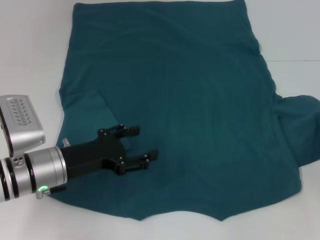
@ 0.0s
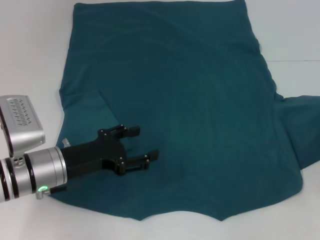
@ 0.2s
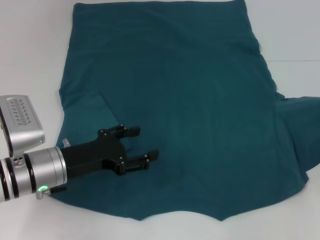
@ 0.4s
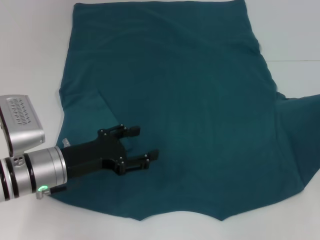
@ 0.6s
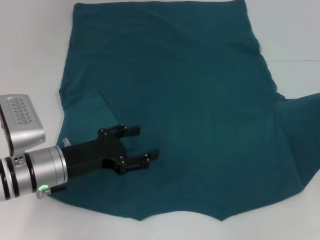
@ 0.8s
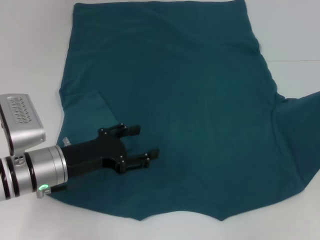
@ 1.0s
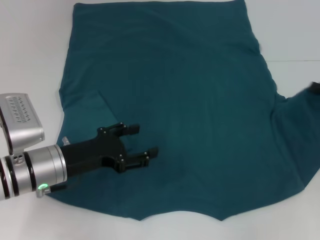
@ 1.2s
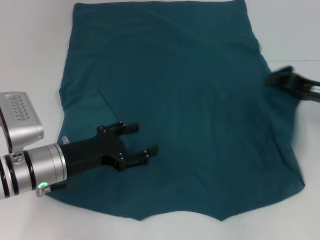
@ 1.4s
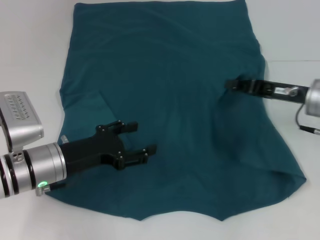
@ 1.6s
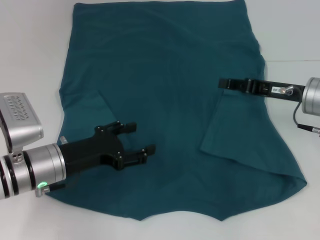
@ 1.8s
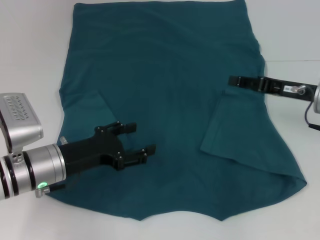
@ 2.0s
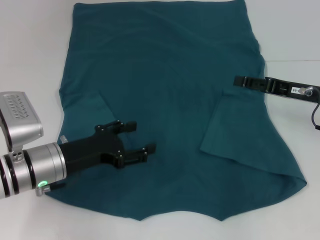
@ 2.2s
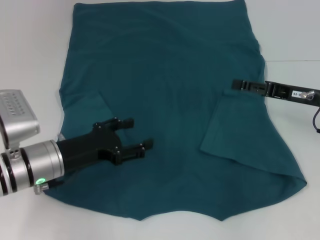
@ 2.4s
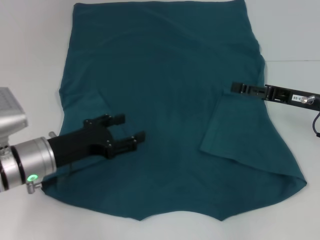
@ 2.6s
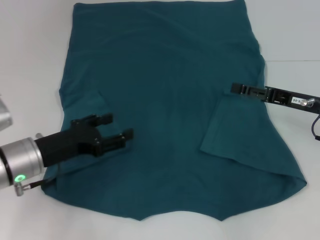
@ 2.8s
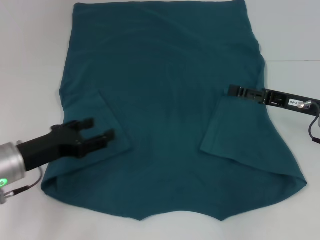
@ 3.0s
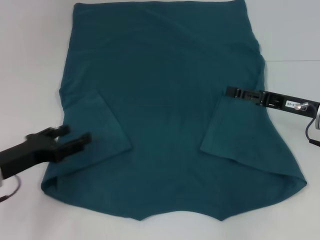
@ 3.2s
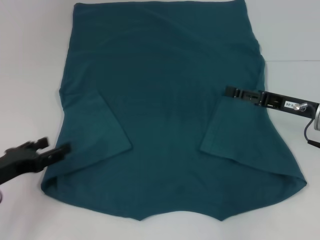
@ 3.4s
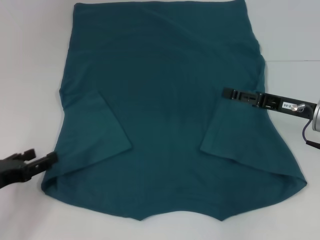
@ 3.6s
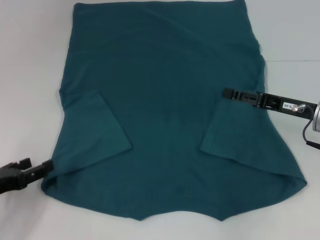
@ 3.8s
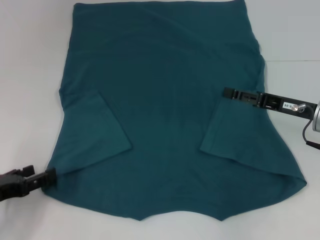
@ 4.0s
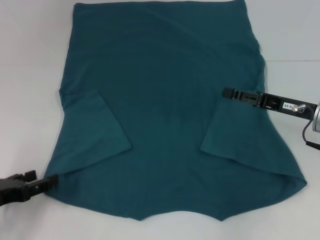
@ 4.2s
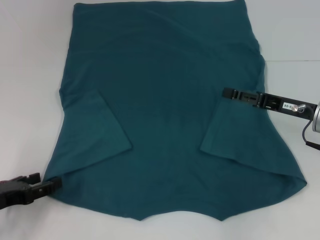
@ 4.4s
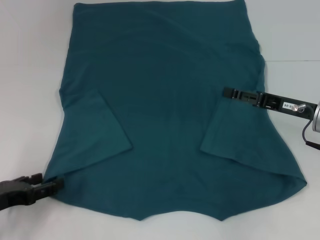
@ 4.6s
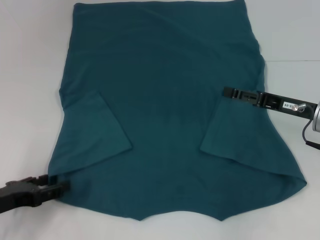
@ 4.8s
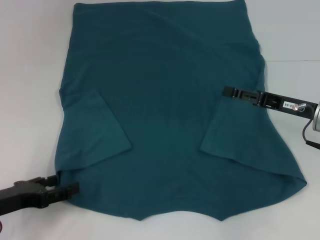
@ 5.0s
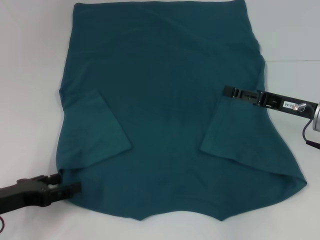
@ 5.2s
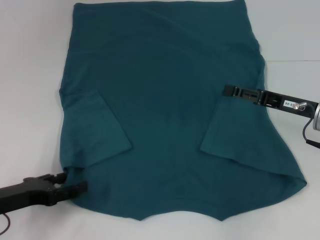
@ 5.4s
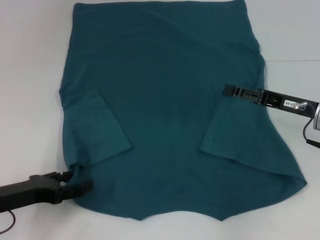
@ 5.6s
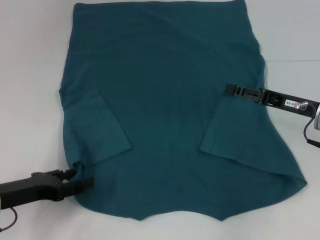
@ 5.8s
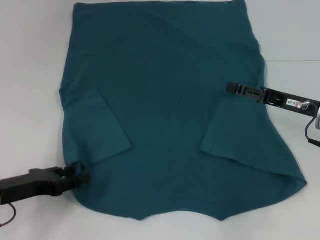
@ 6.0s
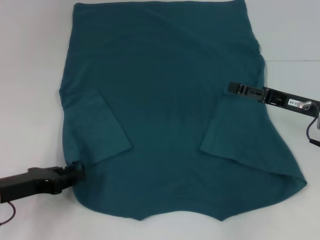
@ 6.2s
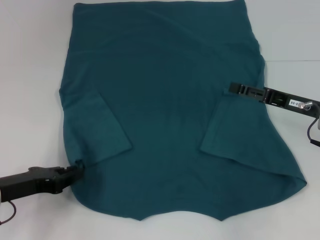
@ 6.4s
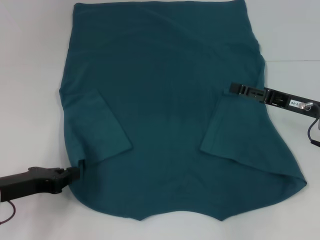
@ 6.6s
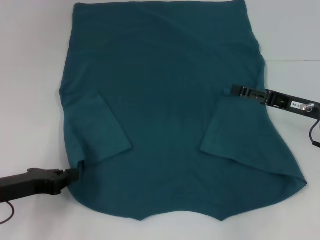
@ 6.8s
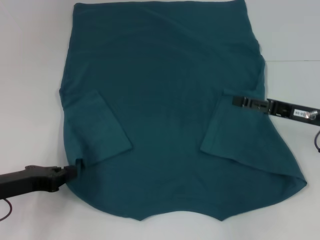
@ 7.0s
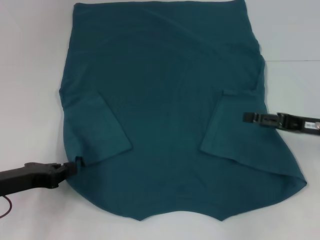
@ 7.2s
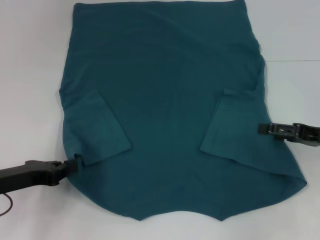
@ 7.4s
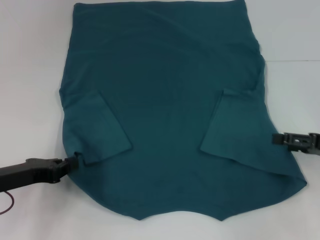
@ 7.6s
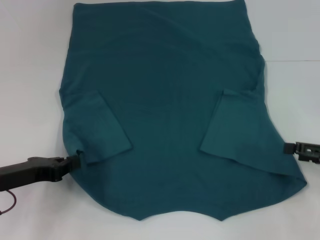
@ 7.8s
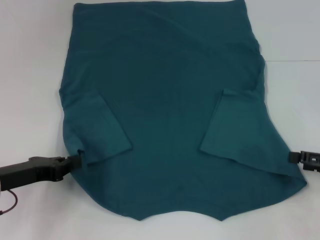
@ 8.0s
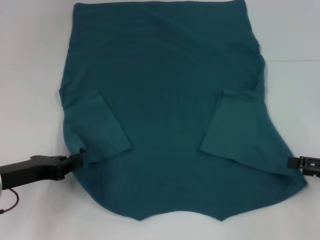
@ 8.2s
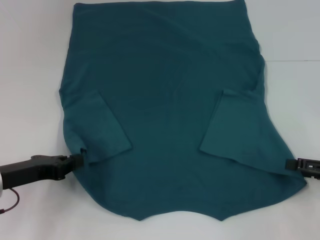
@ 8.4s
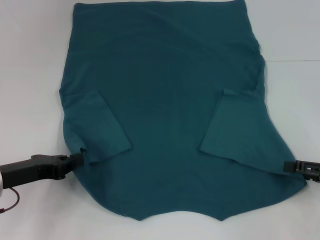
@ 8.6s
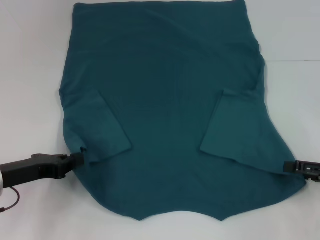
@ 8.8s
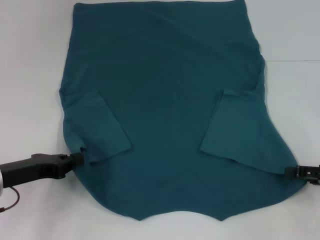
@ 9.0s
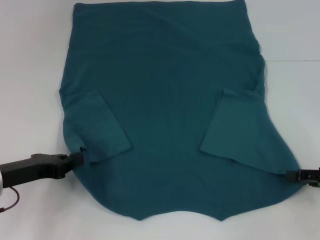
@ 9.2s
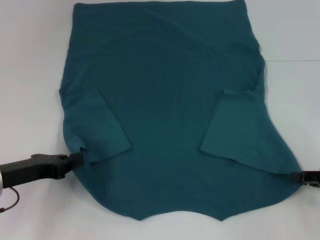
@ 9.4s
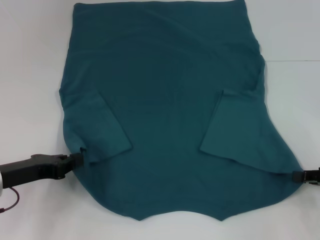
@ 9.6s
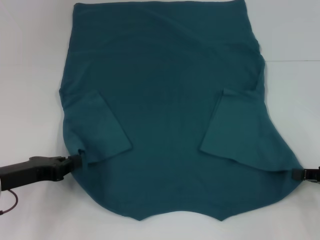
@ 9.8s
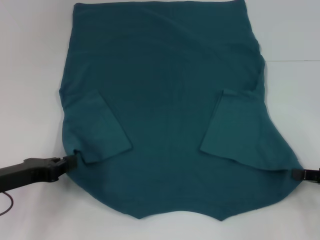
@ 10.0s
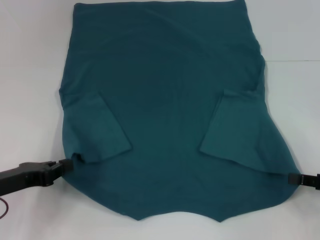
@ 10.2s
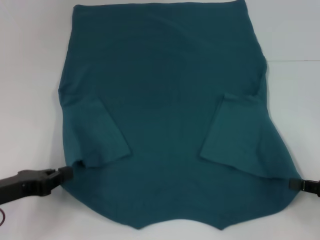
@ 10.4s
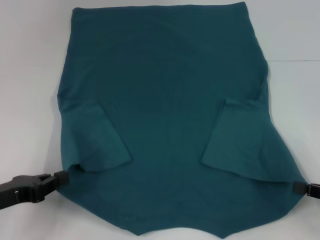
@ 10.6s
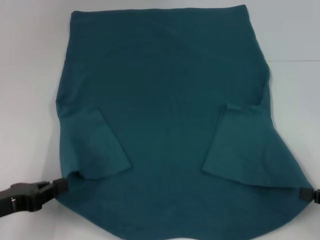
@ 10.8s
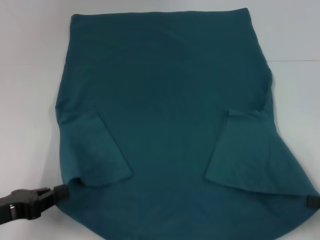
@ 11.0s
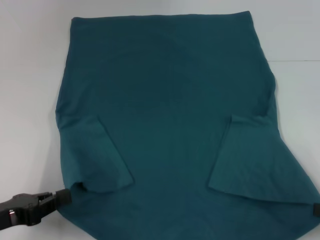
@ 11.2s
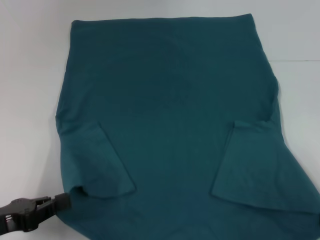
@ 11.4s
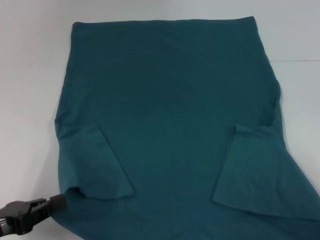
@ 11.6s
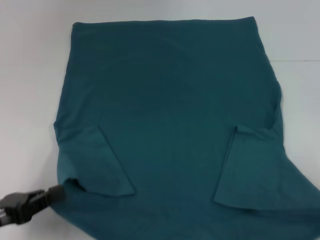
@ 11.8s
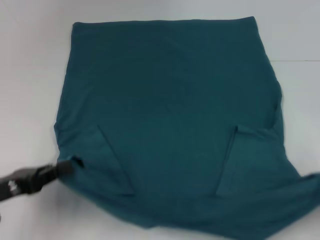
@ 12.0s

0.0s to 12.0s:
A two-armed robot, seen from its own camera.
Step, 0.0s to 3.2s: Fold the bottom right sleeve to the right.
Step, 3.4s to 6.4s: Grab the bottom left corner with your left hand.
Step, 6.6s to 9.8s: Grab the bottom right corner with your right hand.
0.0s to 1.6s: The right gripper is displaced to the left, forward and upward by roughly 15 cm.
1.6s to 3.0s: The right gripper opens up. Meanwhile the left gripper moves to the left, about 5 cm.
3.0s to 4.4s: The left gripper moves to the left and backward, approximately 10 cm.
4.4s to 6.0s: The grippers stay close to where they were, moving slightly.
6.0s to 7.6s: The left gripper closes, while the right gripper goes roughly 10 cm to the right.
7.6s to 9.0s: The grippers make only small movements.
9.0s to 10.4s: The right gripper closes up.
10.4s to 12.0s: The right gripper changes place by about 5 cm.

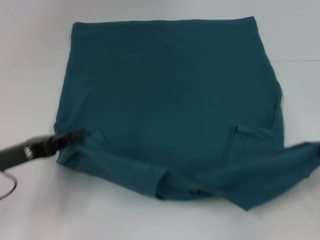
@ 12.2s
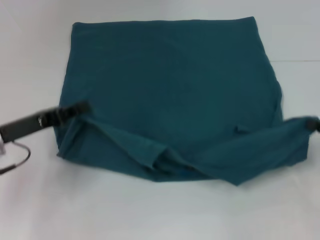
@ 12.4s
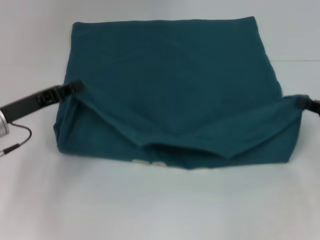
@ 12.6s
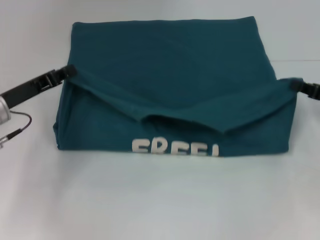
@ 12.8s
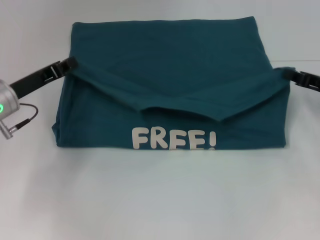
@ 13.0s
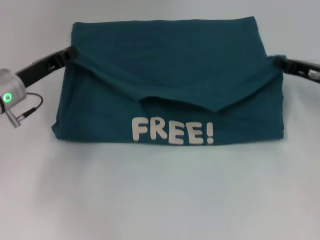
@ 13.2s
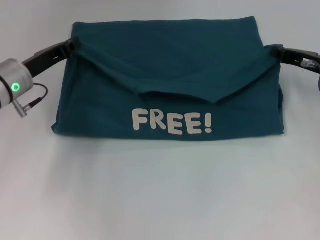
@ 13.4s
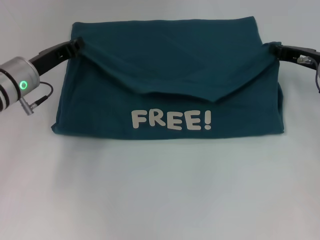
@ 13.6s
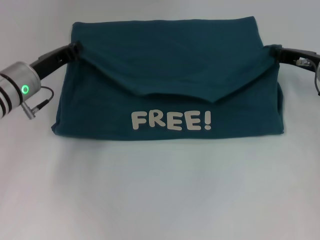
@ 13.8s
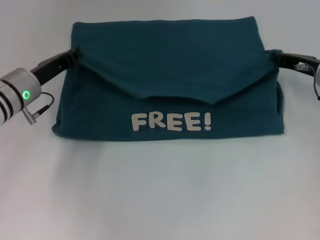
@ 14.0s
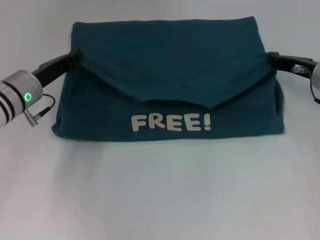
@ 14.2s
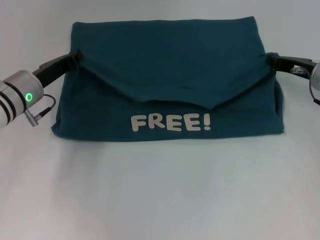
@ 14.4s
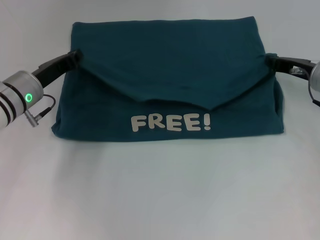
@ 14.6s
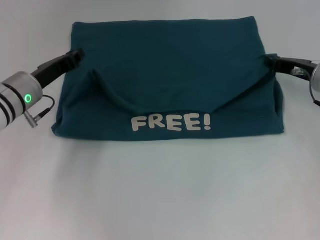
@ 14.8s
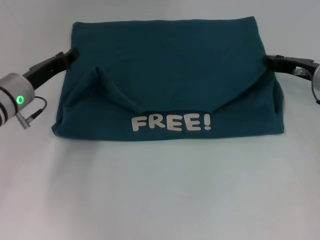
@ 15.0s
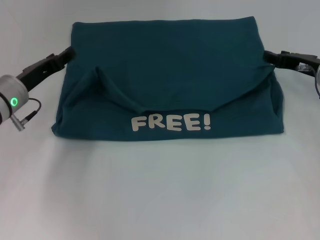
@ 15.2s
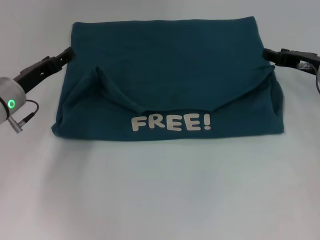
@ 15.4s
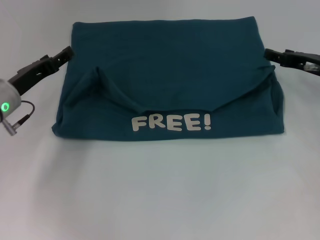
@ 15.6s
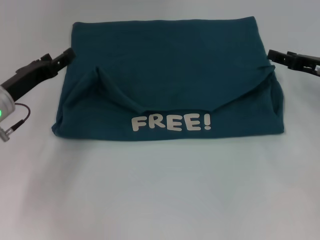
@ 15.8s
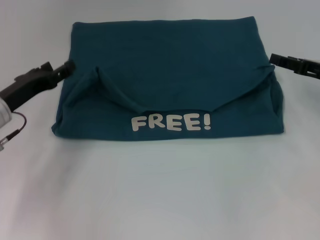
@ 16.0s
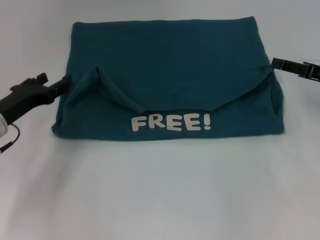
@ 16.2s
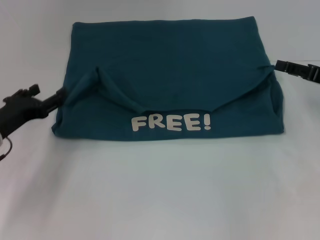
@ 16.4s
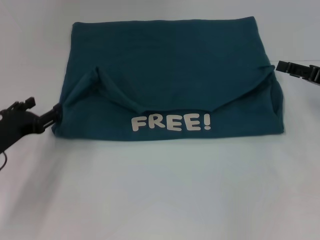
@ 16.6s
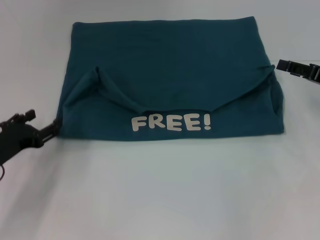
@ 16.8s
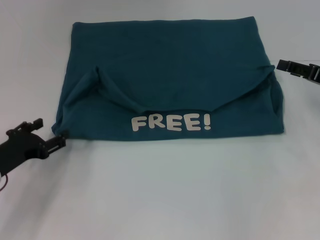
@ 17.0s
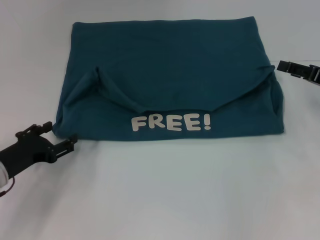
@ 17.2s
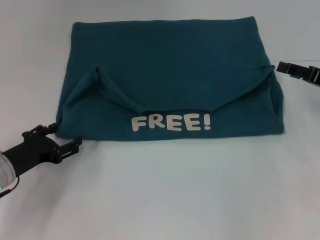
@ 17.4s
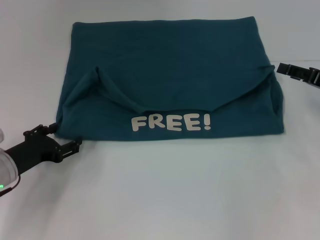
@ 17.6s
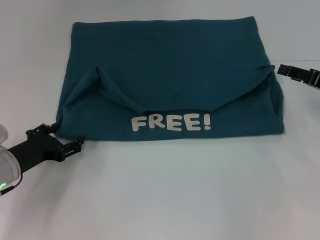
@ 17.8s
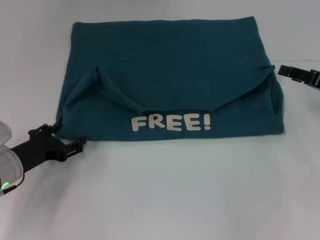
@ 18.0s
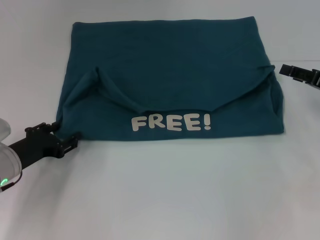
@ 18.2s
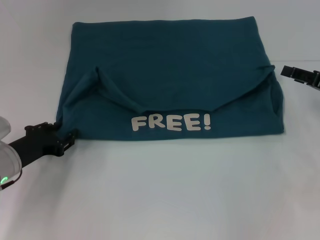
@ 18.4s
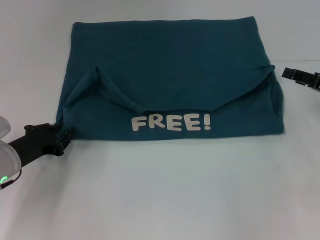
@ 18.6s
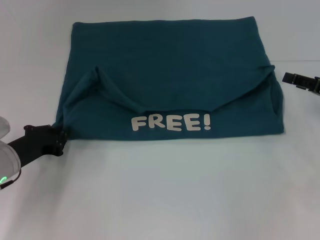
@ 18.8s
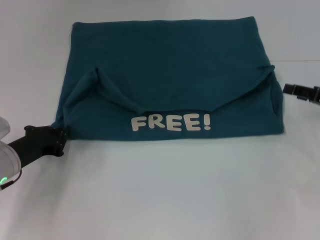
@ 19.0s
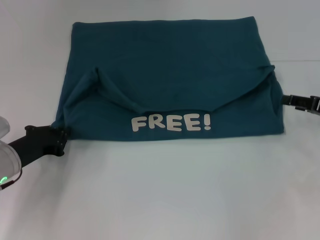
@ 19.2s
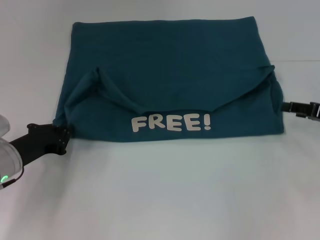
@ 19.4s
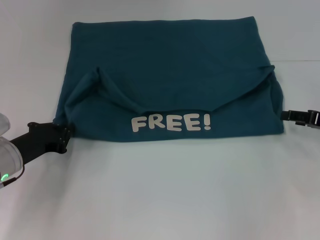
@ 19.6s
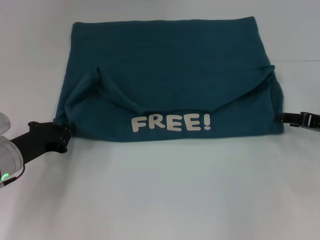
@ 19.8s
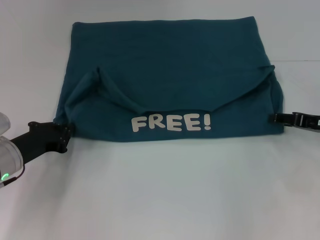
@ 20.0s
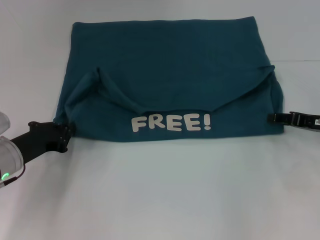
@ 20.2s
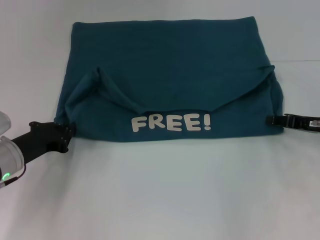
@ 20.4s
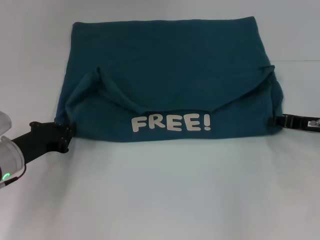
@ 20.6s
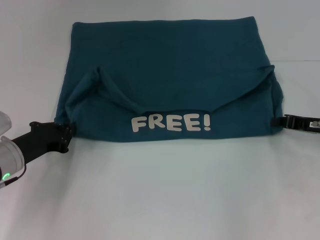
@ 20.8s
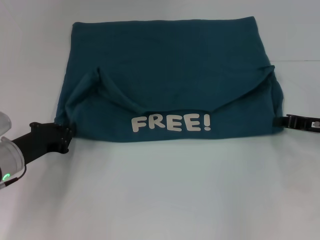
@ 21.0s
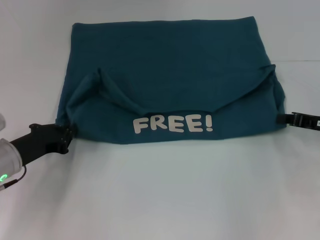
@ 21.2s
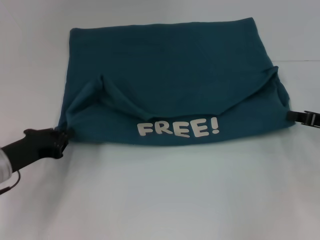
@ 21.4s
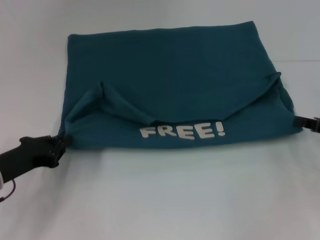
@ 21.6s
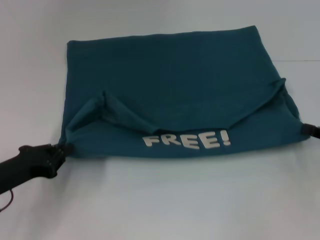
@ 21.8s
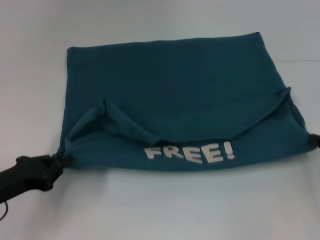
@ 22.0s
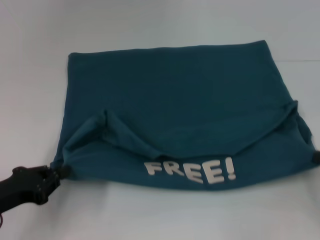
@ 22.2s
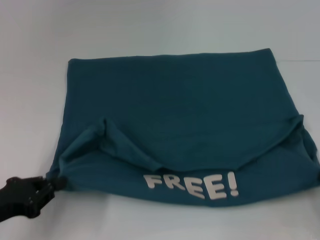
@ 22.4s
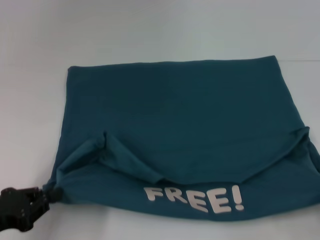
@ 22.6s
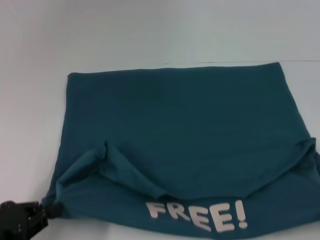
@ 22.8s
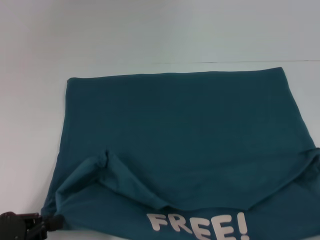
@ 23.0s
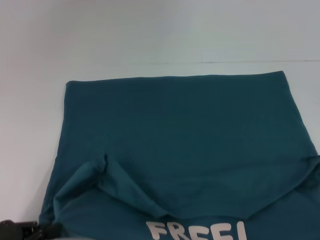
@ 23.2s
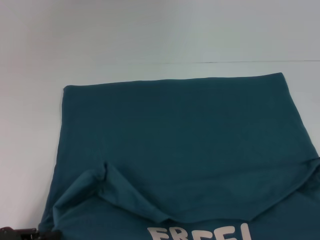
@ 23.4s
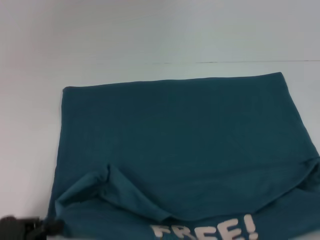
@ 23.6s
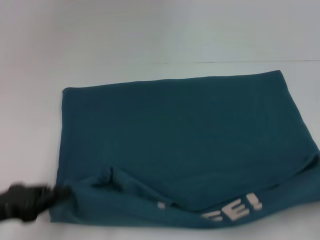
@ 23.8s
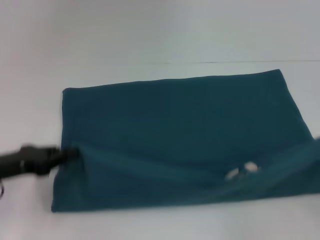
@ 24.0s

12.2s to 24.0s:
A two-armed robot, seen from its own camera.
Step, 12.2s to 15.0s: Fold the clothes to the left.
Step, 12.2s to 15.0s: Fold the clothes to the right.
Step, 15.2s to 23.6s: Pull the clothes with your left hand.
Step, 15.2s to 23.6s: Pull the clothes with your right hand.
12.2s to 13.6s: The right gripper heads forward and to the left, covering some 20 cm, while the left gripper travels forward by approximately 15 cm.
13.6s to 15.2s: The right gripper opens up. The left gripper opens.
15.2s to 16.6s: The right gripper moves backward and to the right, about 10 cm; the left gripper travels backward by some 10 cm, and opens its fingers.
16.6s to 18.2s: The grippers move only a little.
18.2s to 19.6s: The left gripper closes its fingers.
19.6s to 21.0s: The right gripper closes up.
21.0s to 22.6s: The left gripper is displaced backward by some 15 cm; the right gripper is displaced backward and to the right by some 20 cm.
22.6s to 24.0s: The right gripper moves some 5 cm, while the left gripper heads forward, covering approximately 5 cm.
